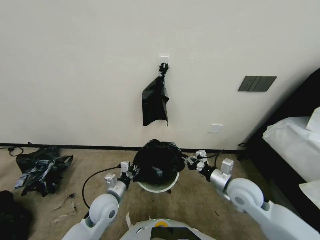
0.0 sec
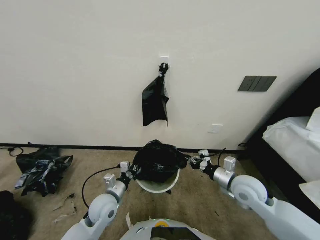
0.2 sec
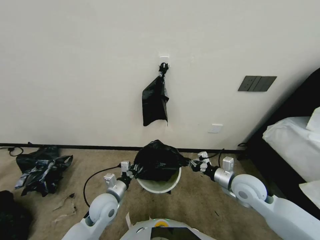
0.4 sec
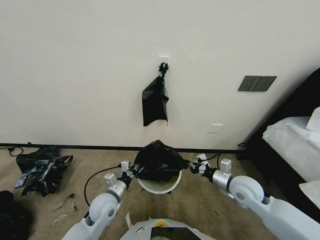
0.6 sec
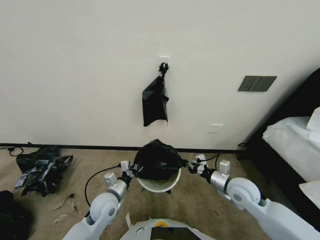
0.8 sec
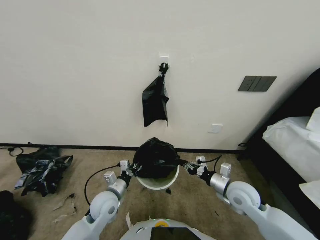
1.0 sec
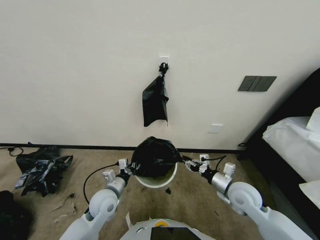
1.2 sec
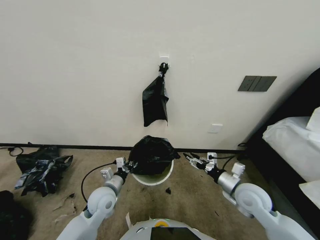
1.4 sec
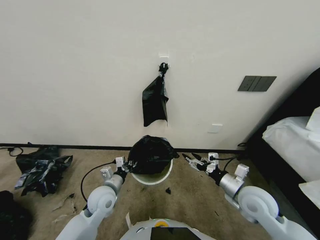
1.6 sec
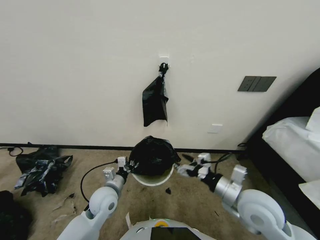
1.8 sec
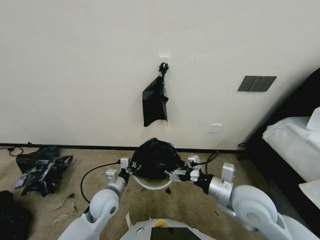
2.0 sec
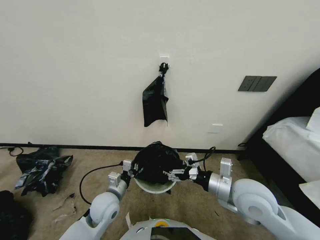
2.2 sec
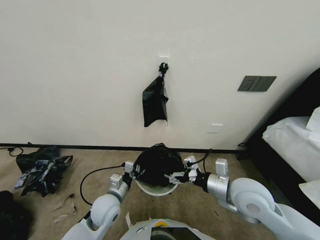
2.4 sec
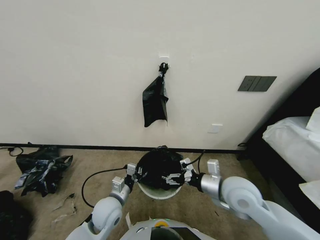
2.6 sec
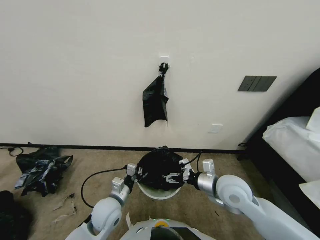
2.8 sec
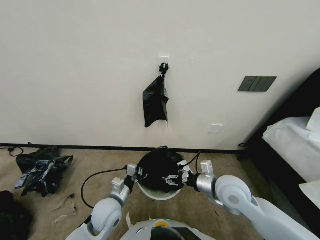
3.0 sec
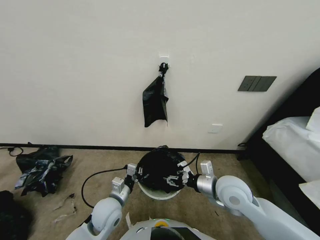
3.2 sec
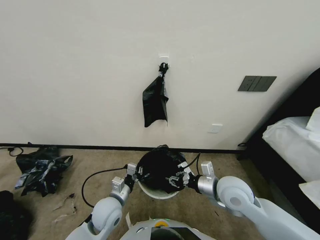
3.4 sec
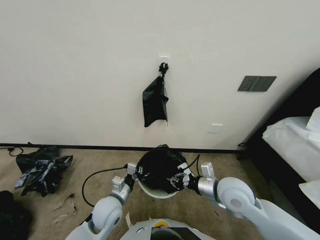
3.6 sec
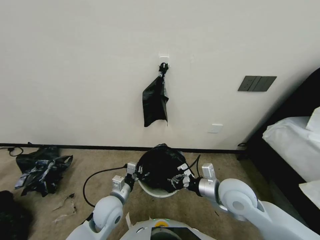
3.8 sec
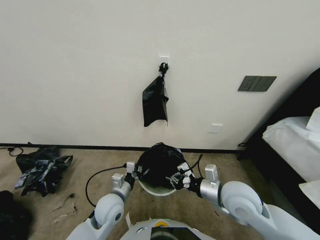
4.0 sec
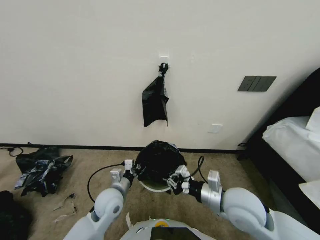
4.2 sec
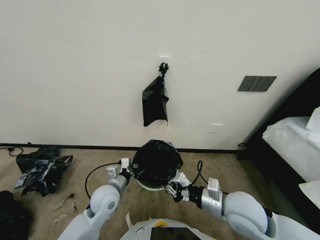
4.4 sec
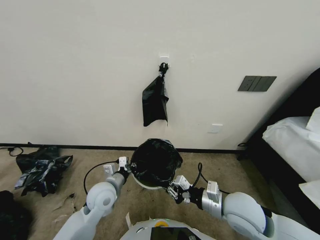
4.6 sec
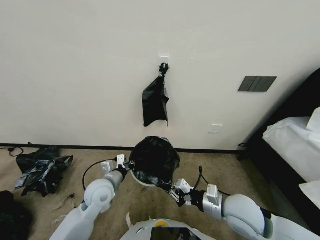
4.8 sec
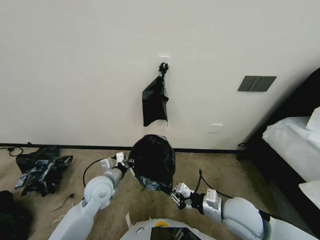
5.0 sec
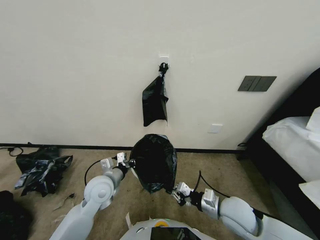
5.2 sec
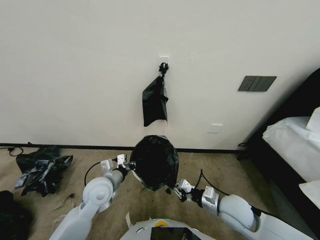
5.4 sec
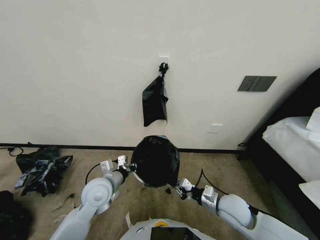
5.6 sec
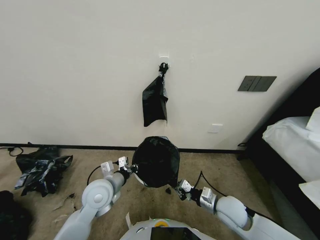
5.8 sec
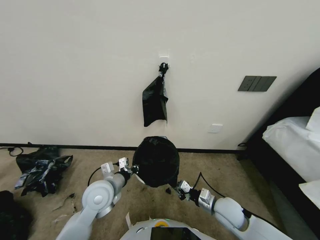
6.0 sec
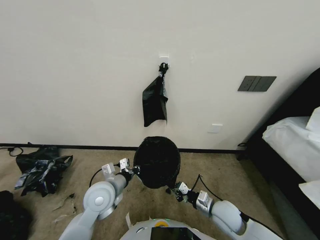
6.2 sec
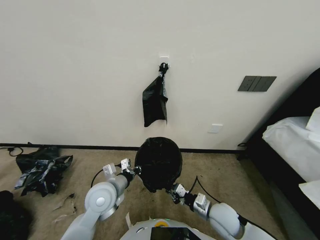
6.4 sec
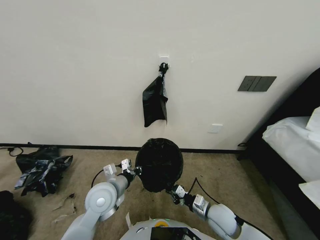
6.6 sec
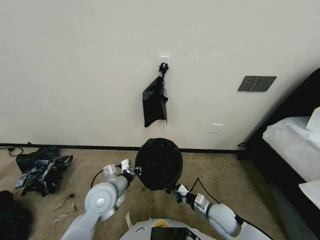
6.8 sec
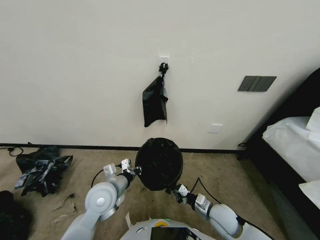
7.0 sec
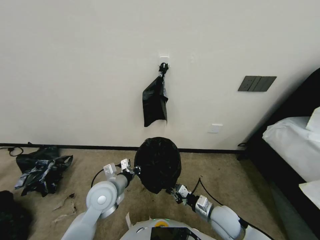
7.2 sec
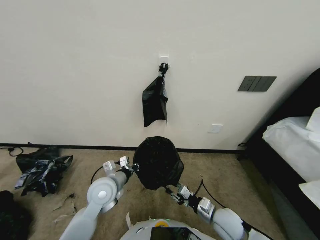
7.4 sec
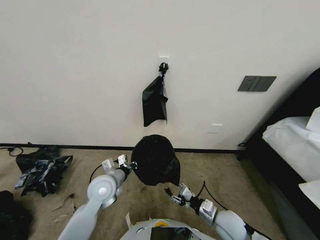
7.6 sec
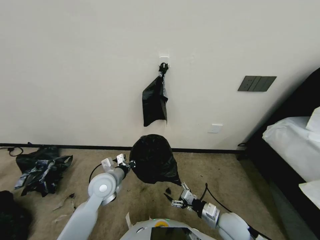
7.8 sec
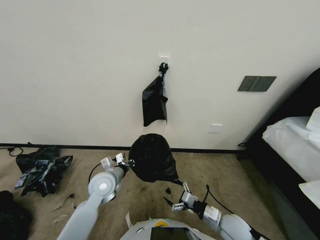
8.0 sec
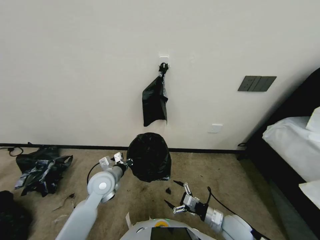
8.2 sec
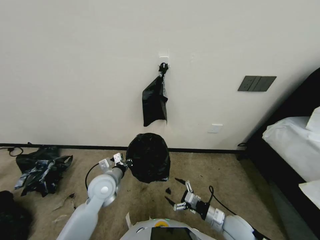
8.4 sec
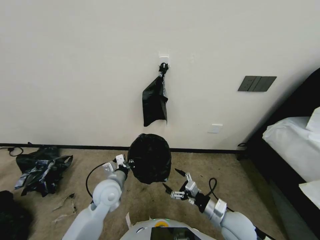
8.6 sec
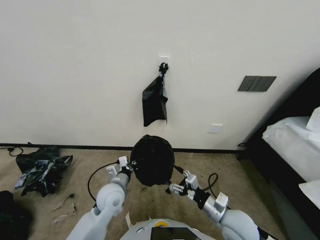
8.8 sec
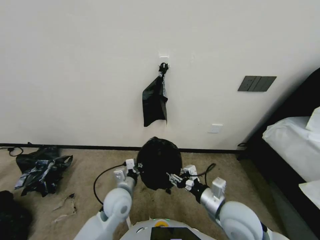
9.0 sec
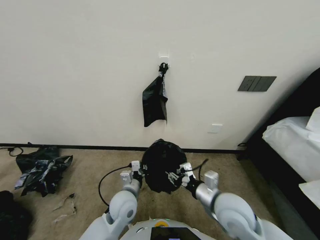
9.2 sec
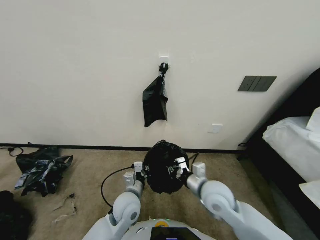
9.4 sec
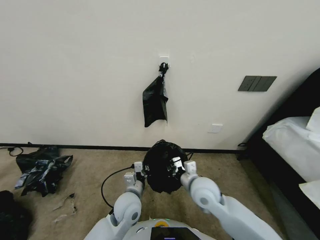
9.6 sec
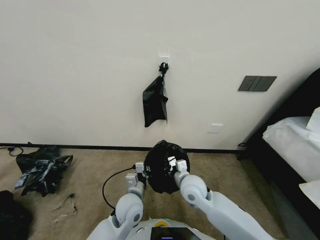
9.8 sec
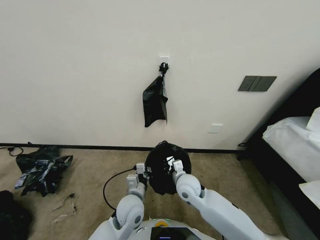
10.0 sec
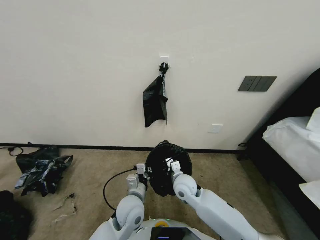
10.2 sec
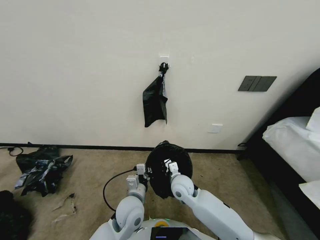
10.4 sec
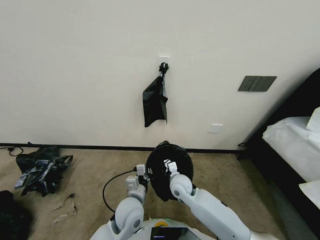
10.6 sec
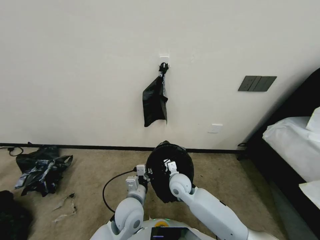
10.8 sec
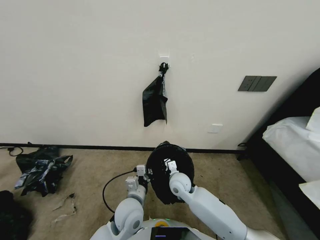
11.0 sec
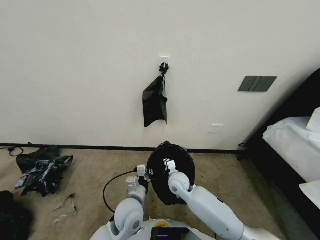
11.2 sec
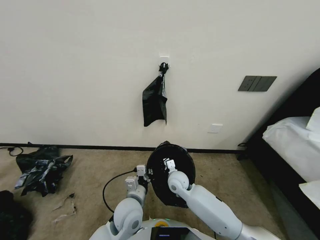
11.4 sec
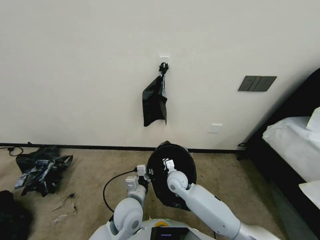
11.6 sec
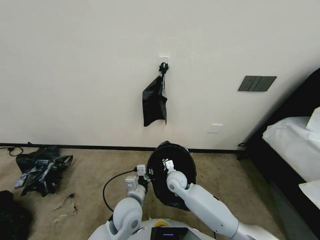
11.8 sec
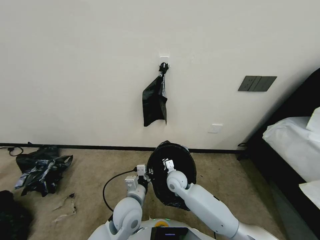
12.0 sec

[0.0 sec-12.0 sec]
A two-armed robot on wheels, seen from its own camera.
Task of the whole recording: Place a trash bag onto the trash bin.
0.0 sec to 1.6 sec: The right gripper opens up.
1.6 sec to 3.0 sec: The left gripper shifts by approximately 5 cm, while the right gripper is displaced to the left by approximately 10 cm.
3.0 sec to 4.4 sec: The right gripper travels backward by about 5 cm, and closes up.
4.4 sec to 6.0 sec: The right gripper is displaced downward by about 15 cm.
6.0 sec to 7.6 sec: The right gripper opens up.
7.6 sec to 9.0 sec: The right gripper heads upward, covering approximately 10 cm, and opens and closes again, while the left gripper shifts by approximately 5 cm.
9.0 sec to 10.4 sec: The right gripper goes approximately 20 cm forward, to the left and downward, and closes its fingers, while the left gripper goes some 5 cm to the right.
10.4 sec to 12.0 sec: The right gripper shifts by about 5 cm.

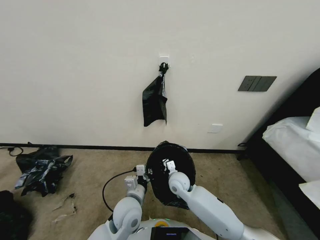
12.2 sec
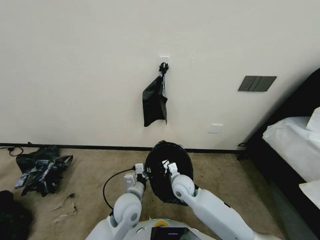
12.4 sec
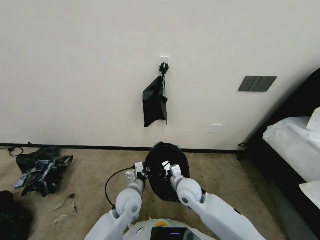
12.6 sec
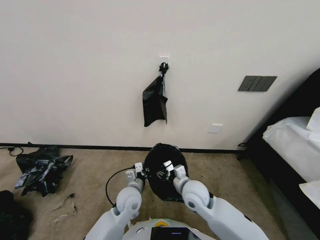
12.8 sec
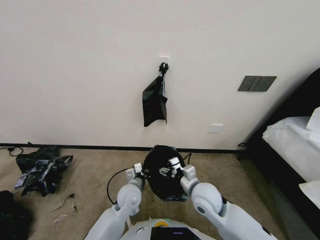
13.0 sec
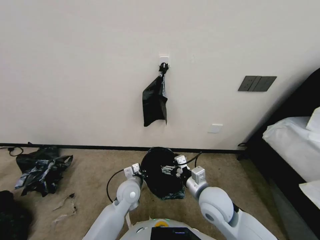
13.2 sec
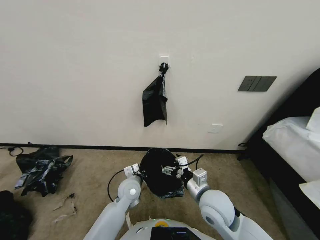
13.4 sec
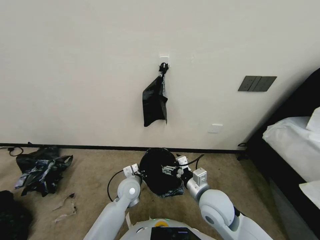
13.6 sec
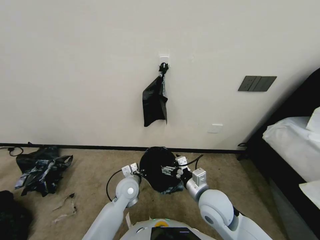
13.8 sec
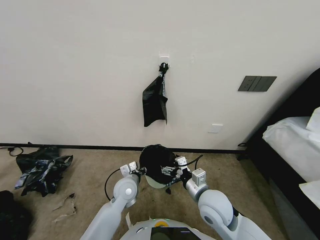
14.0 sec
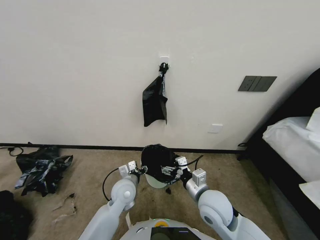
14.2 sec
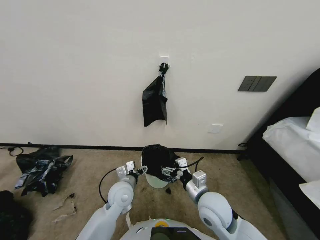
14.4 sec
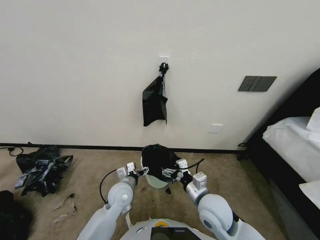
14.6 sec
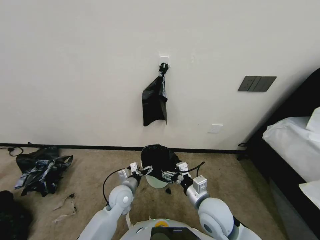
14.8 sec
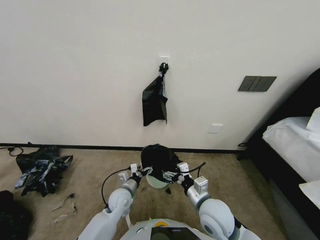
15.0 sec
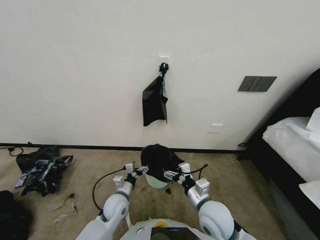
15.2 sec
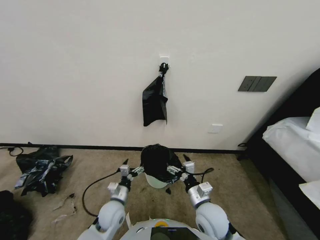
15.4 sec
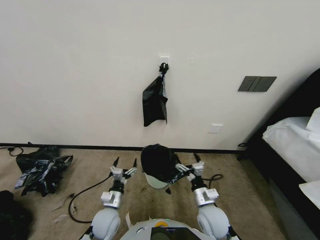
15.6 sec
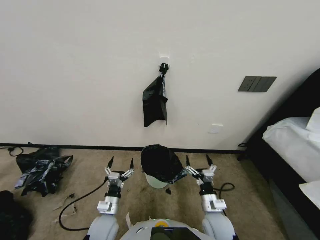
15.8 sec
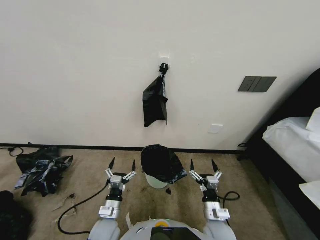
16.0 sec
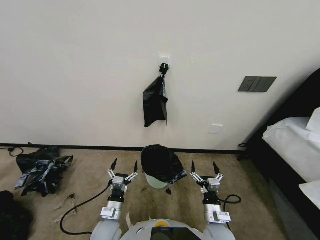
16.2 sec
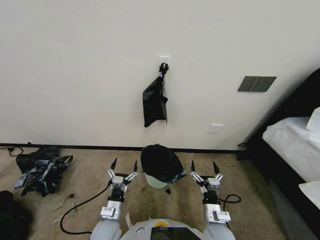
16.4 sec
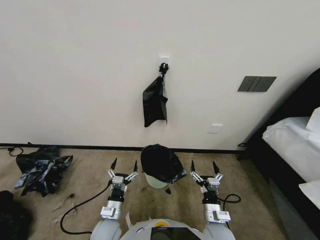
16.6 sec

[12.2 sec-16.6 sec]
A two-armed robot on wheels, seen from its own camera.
Task of the whole recording: Place a trash bag onto the trash bin.
12.2 sec to 13.6 sec: The right gripper travels backward, upward and to the right by roughly 20 cm, and opens. Meanwhile the left gripper heads forward, covering some 10 cm.
13.6 sec to 15.2 sec: The left gripper changes place by roughly 10 cm, and opens its fingers.
15.2 sec to 16.6 sec: The right gripper heads downward, covering roughly 10 cm. Meanwhile the left gripper moves backward, about 10 cm.
